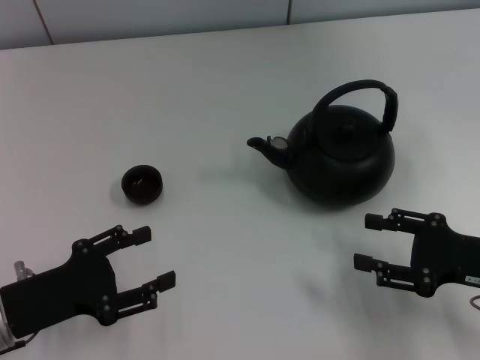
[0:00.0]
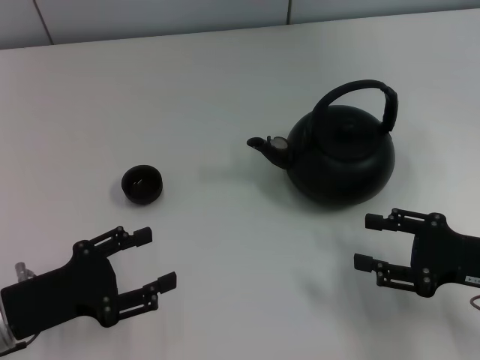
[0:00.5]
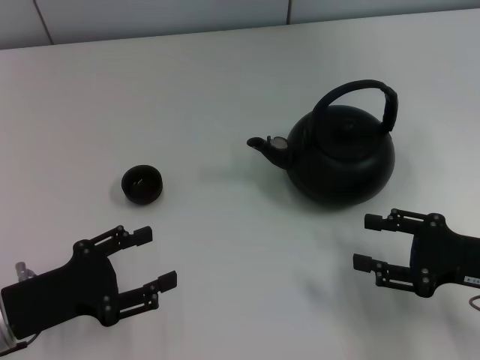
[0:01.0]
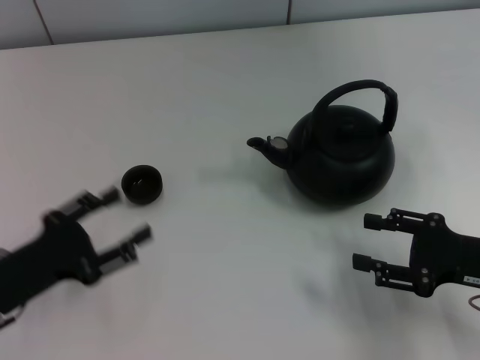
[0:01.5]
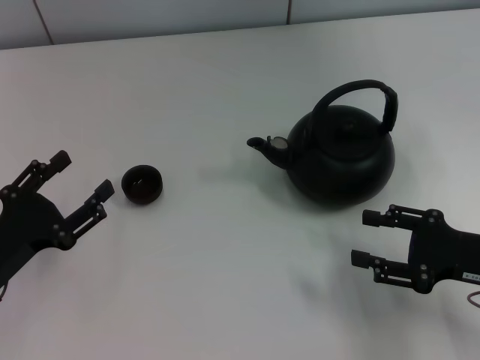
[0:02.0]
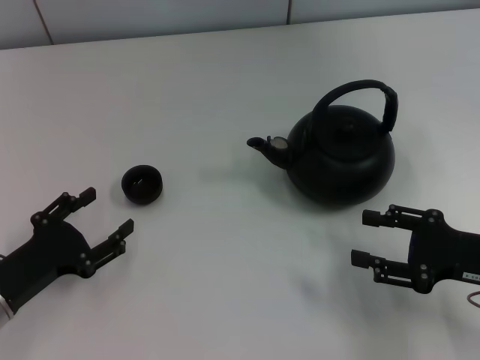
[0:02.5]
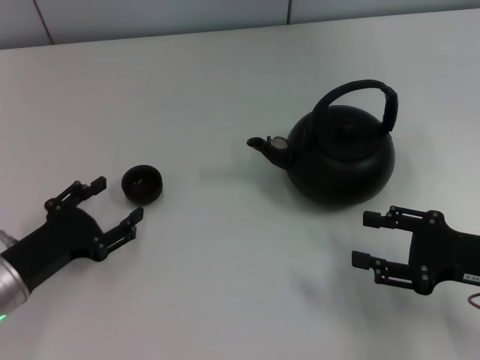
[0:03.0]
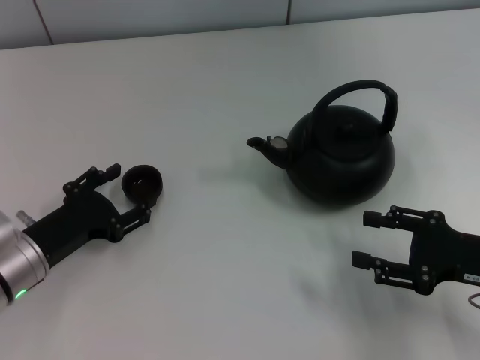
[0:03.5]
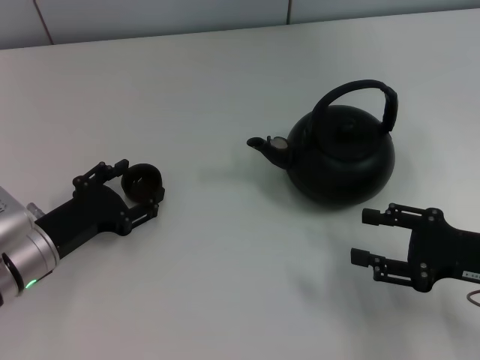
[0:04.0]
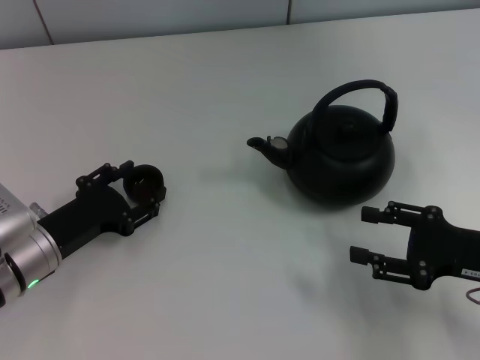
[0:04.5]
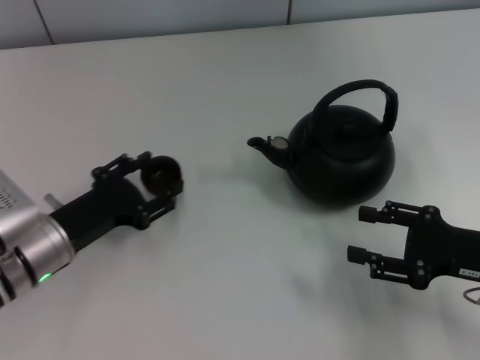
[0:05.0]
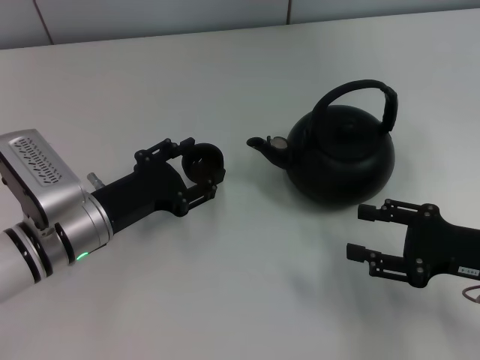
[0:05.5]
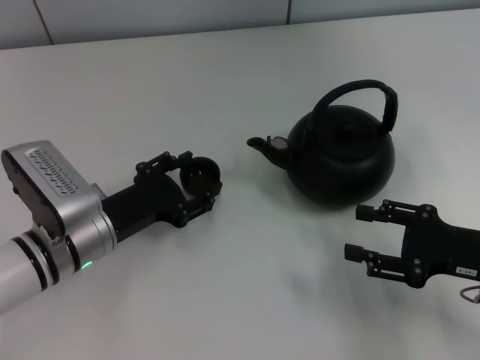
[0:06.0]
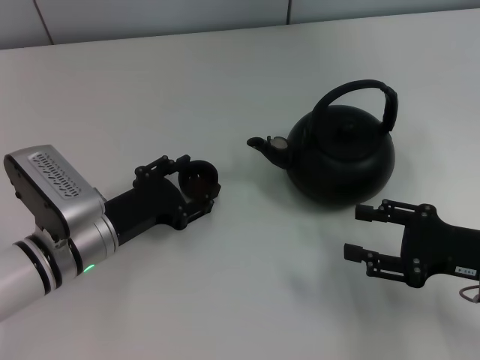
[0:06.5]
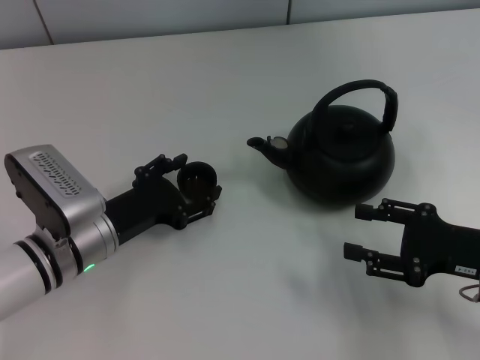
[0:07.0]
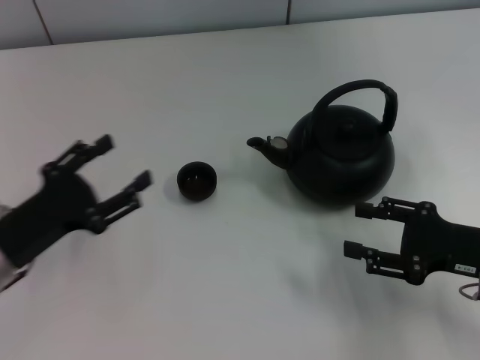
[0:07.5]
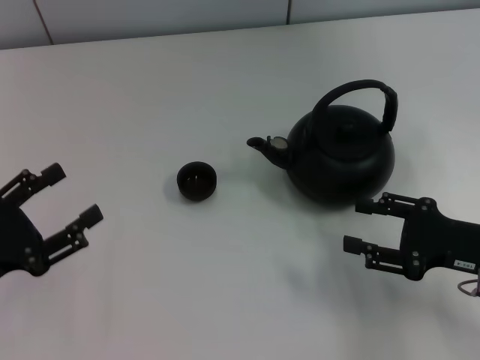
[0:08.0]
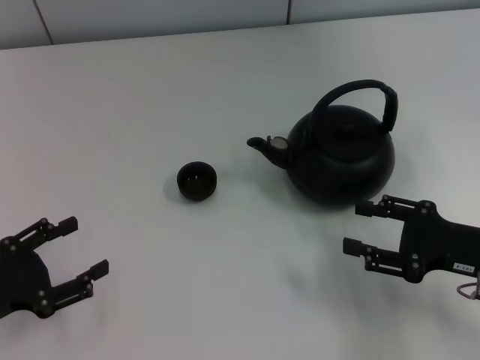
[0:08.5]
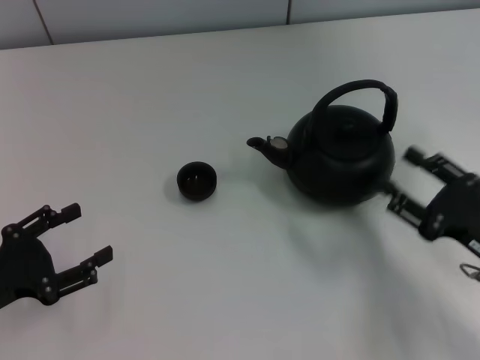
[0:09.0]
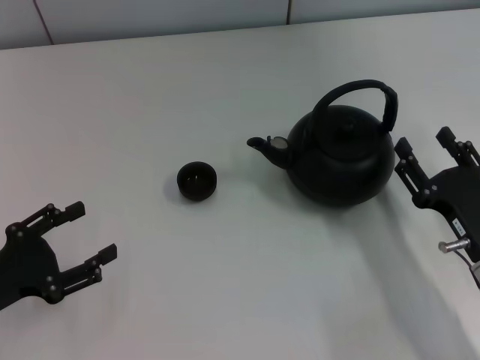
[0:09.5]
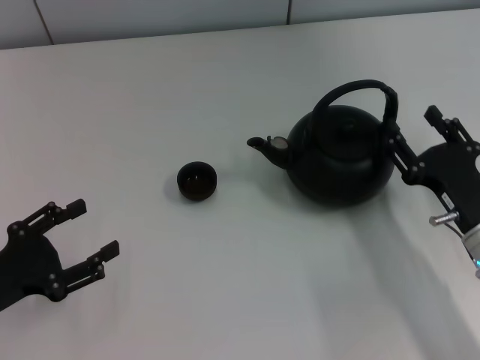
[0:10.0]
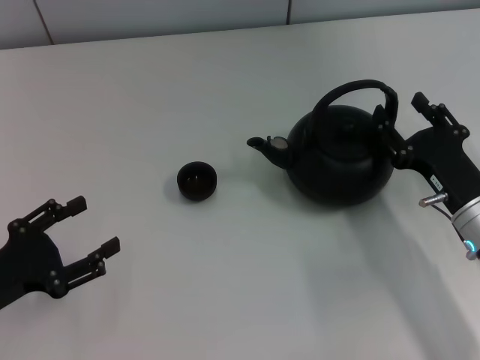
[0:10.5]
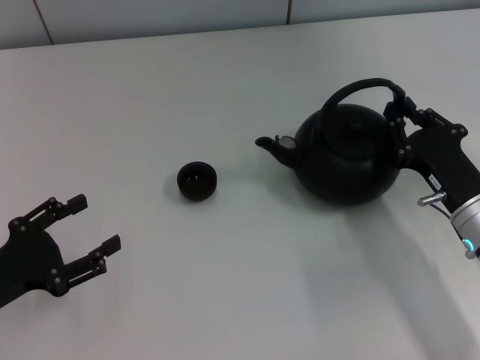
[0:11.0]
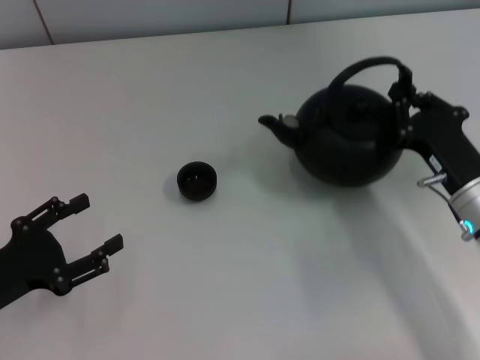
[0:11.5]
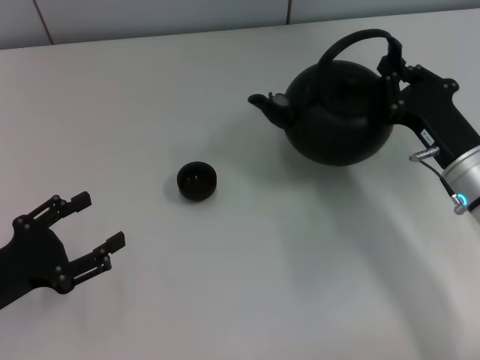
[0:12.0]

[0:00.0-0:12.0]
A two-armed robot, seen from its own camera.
Task of the whole recording: Grasp the handle of the teapot with one hand and pour tea into the teacup.
Step, 0:00.0 to 0:05.0: Pick up the teacup with the left gripper.
Step, 0:05.5 to 0:07.0: Place the teacup in the center of view with the left gripper.
Step, 0:07.5 to 0:11.5: Pick up the teapot with the right gripper.
0:02.0 to 0:04.0: The left gripper heads forward, covering roughly 5 cm.
0:04.0 to 0:06.0: The left gripper shifts some 5 cm to the right.
0:06.0 to 0:08.0: The left gripper goes some 15 cm to the left and backward, and opens its fingers.
0:08.0 to 0:10.0: The right gripper shifts by roughly 5 cm.
0:10.0 to 0:12.0: The right gripper shifts approximately 5 cm forward, and closes its fingers.

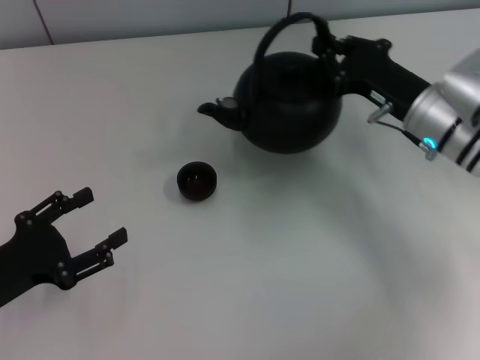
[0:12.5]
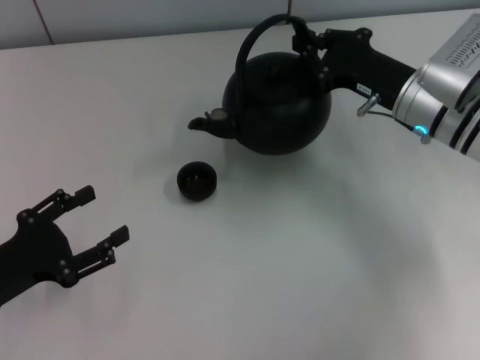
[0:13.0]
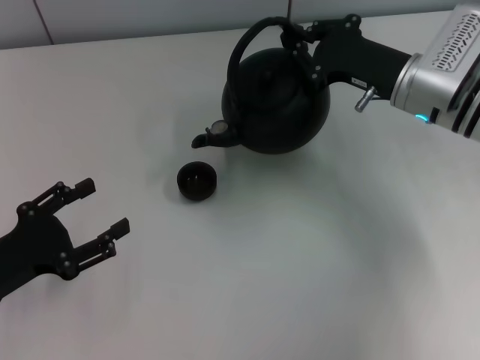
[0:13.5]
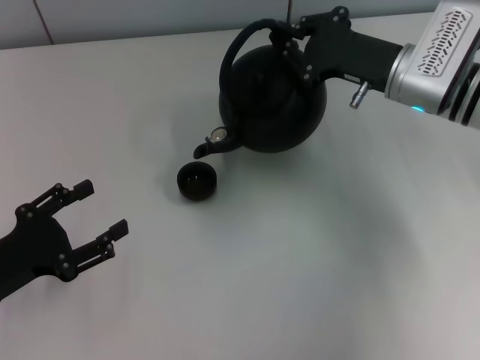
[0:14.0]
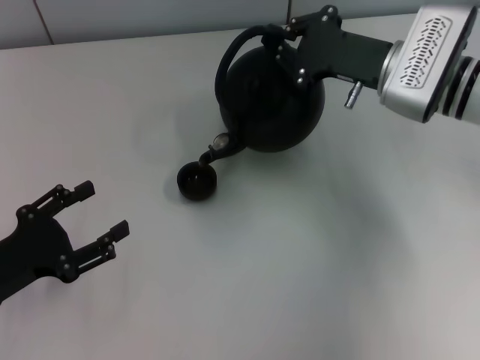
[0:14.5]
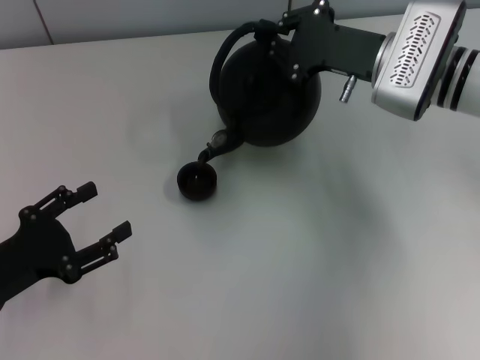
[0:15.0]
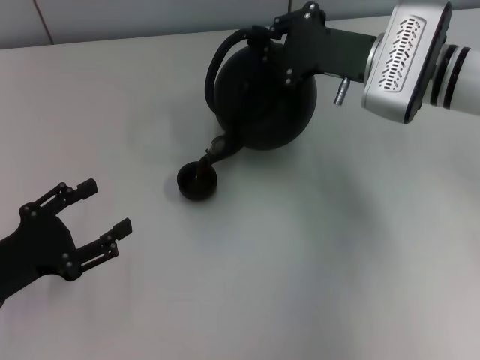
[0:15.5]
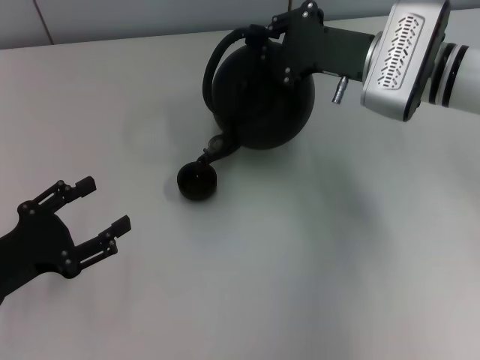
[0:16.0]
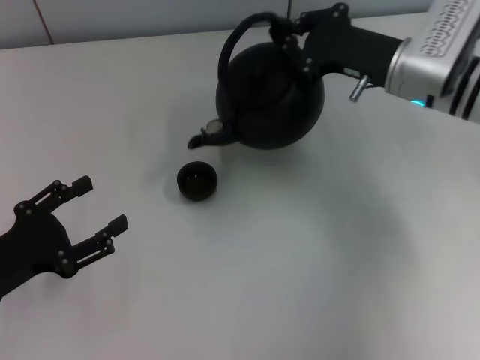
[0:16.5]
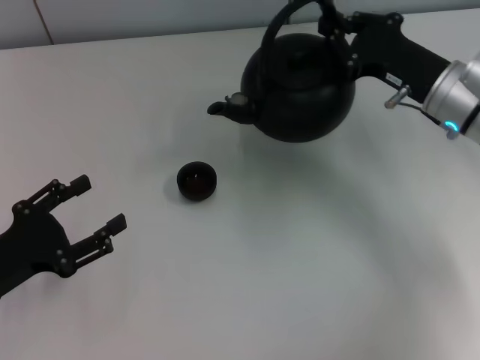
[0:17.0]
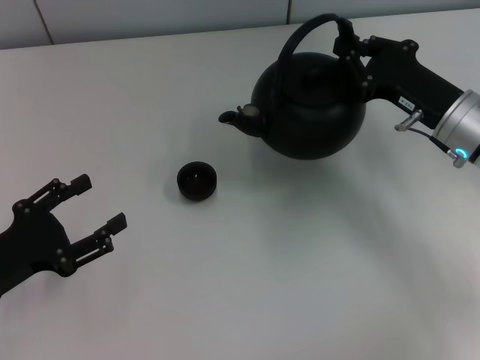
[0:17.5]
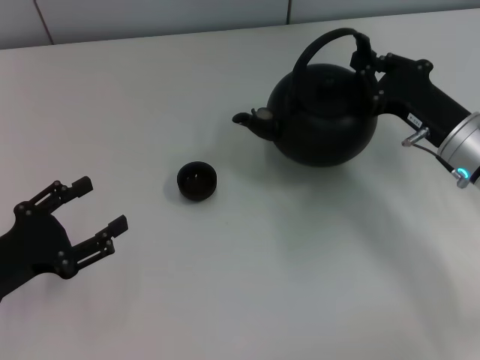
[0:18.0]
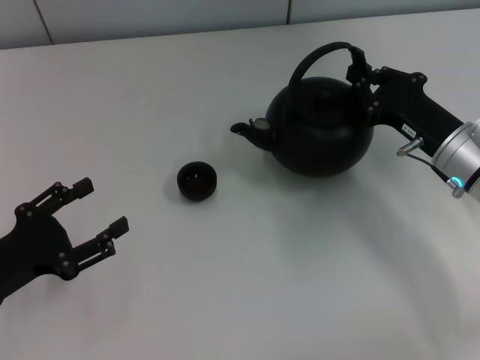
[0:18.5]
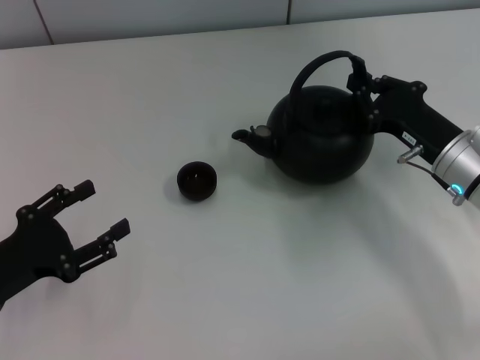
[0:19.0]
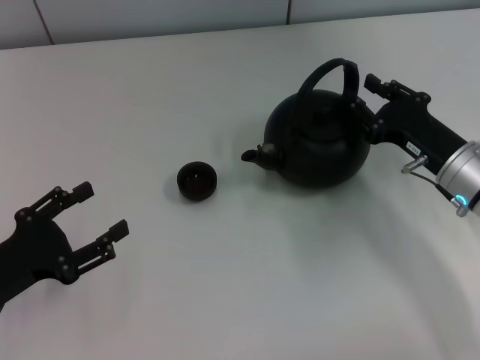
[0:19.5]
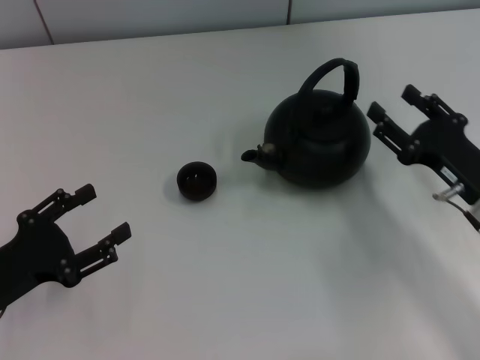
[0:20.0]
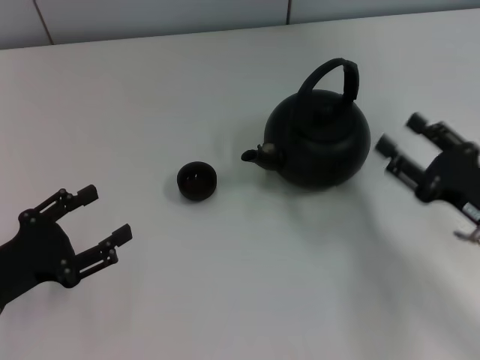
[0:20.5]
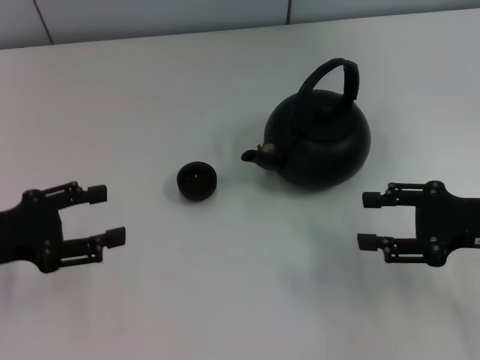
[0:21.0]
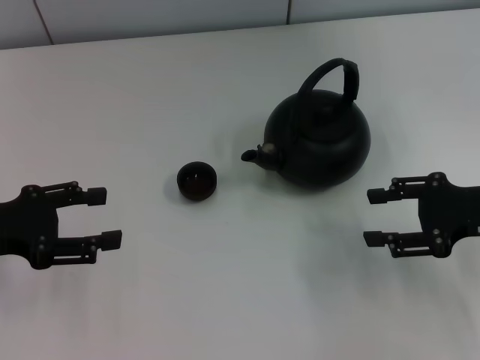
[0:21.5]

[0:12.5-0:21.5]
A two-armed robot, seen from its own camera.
Task of the whole recording: Grasp the handle of the teapot with one hand and pour tea into the teacup.
Step, 0:16.5 to 0:20.0: Put down the teapot with the right gripper.
0:12.5 to 0:14.5: The right gripper ends up approximately 5 cm from where it was.
0:14.5 to 0:17.0: The right gripper ends up about 5 cm from where it was.
0:17.0 to 0:19.5: The right gripper heads downward and backward, covering roughly 10 cm, and opens its fingers.
0:19.5 to 0:21.5: The right gripper is displaced upward and to the right by some 10 cm, and opens. The left gripper goes roughly 10 cm upward and forward.

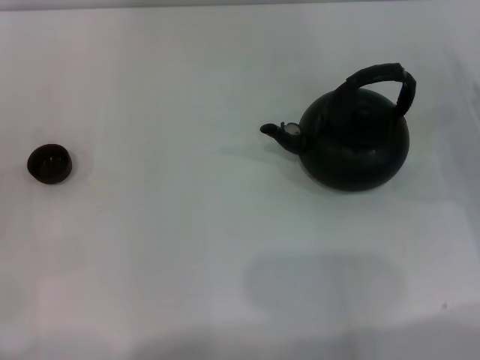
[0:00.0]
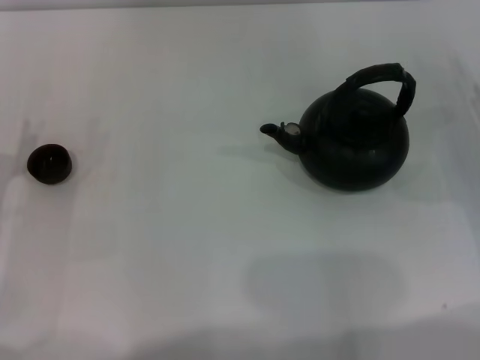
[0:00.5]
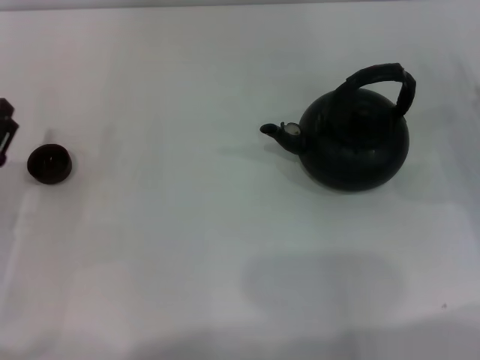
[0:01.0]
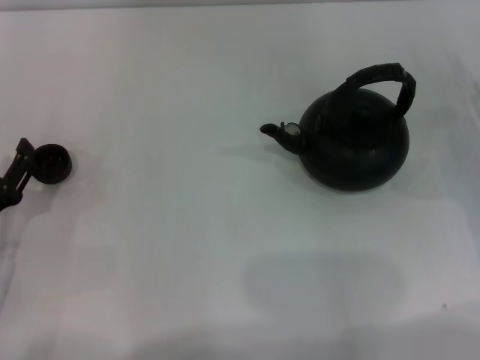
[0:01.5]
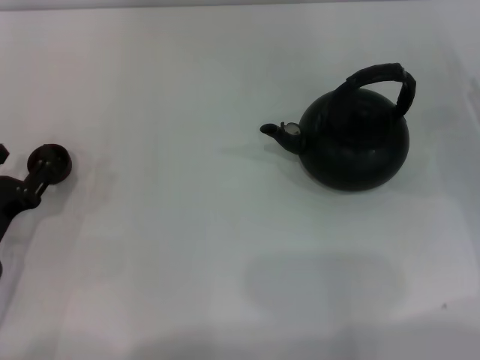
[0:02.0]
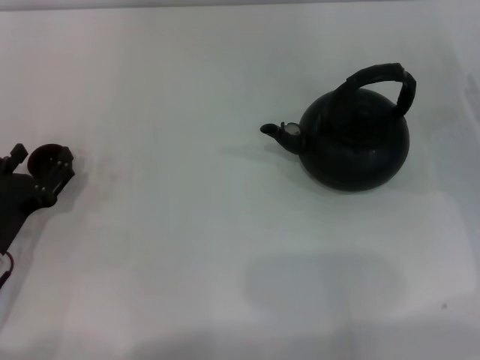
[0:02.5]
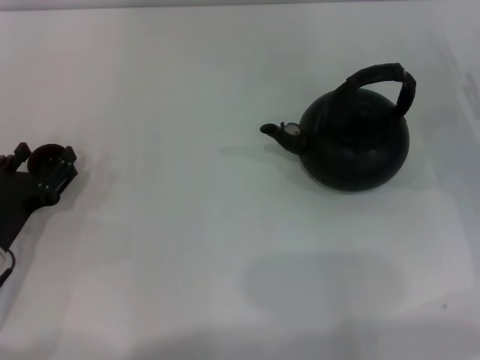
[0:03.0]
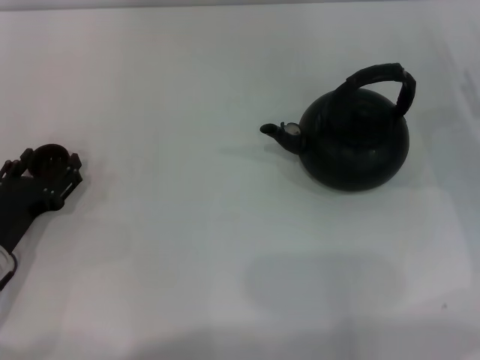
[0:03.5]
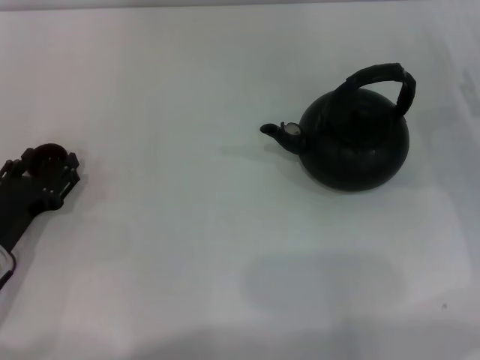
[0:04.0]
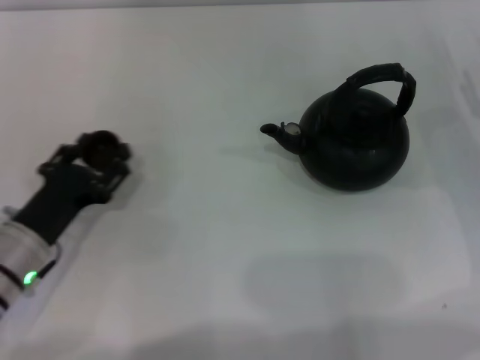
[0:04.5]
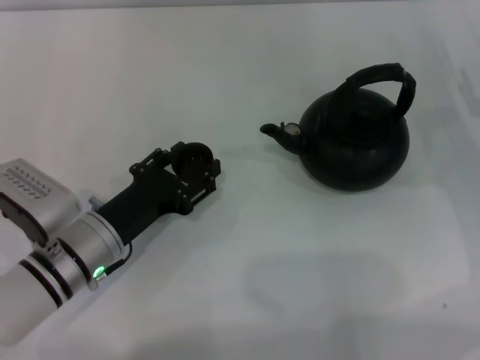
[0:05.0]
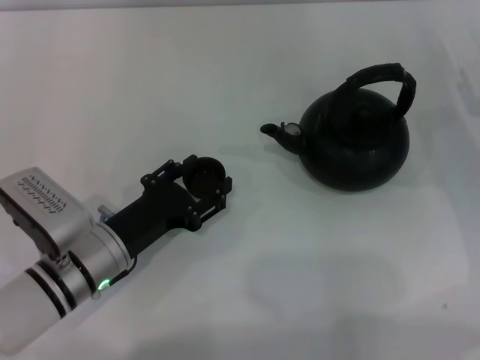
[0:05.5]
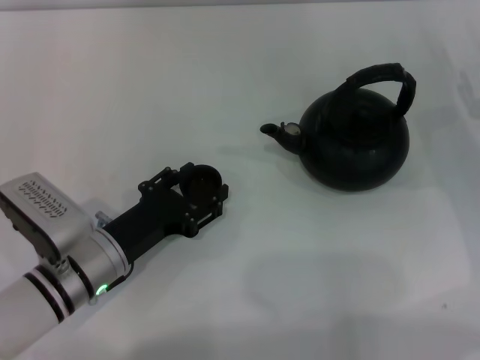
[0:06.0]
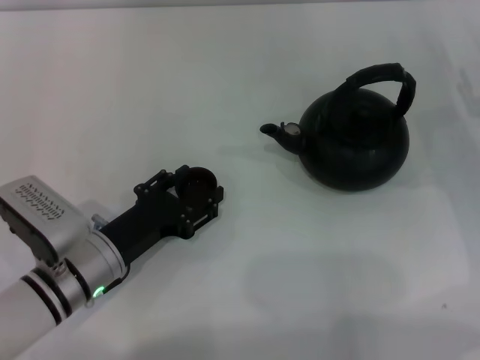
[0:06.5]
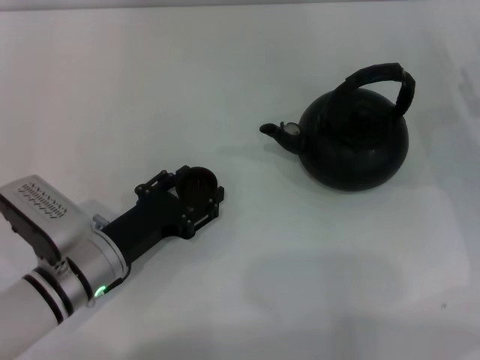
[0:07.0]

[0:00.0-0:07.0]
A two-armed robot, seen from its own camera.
Task of the whole recording: Grasp the handle of the teapot with one hand and pour tea into the teacup.
Step, 0:00.0 to 0:04.0: Pick up the teacup with the left gripper.
0:00.0 to 0:02.0: The left gripper shifts by some 5 cm.
0:02.0 to 0:03.5: The grippers make only small movements.
0:03.5 to 0:05.0: The left gripper moves to the right, some 10 cm, and closes.
0:05.0 to 0:07.0: The grippers move only a little.
